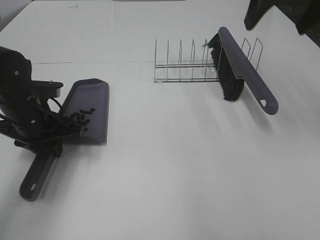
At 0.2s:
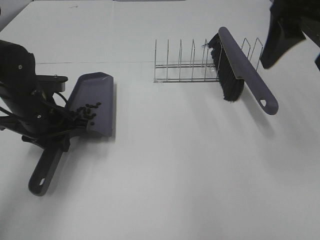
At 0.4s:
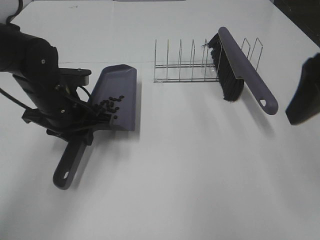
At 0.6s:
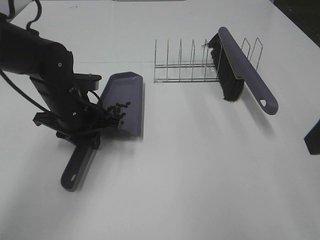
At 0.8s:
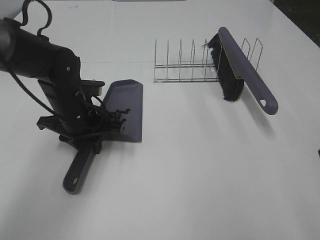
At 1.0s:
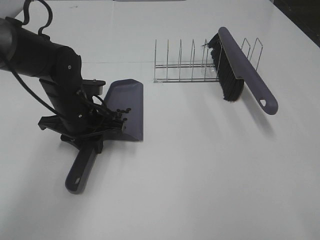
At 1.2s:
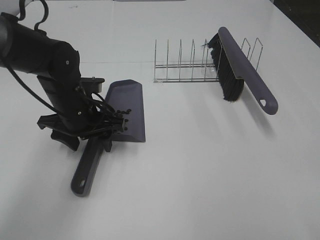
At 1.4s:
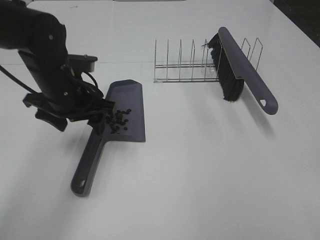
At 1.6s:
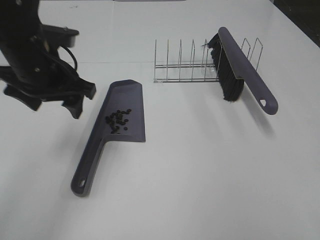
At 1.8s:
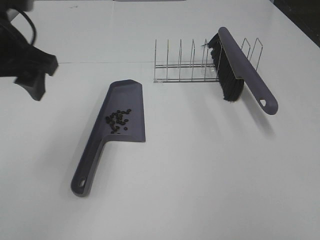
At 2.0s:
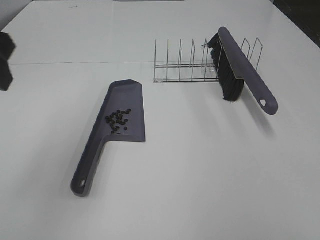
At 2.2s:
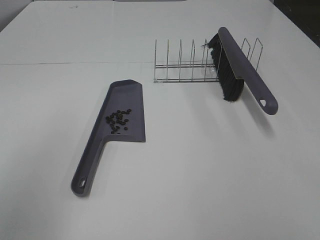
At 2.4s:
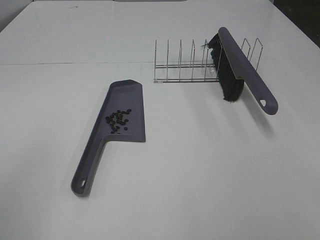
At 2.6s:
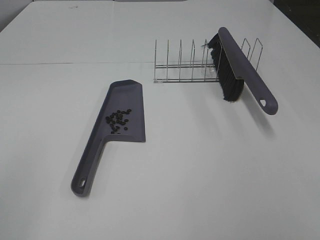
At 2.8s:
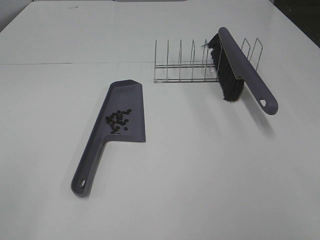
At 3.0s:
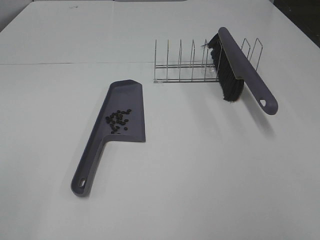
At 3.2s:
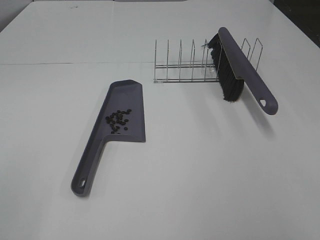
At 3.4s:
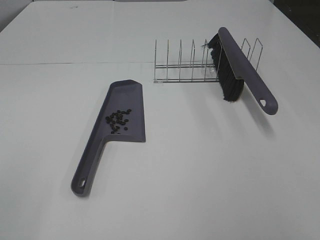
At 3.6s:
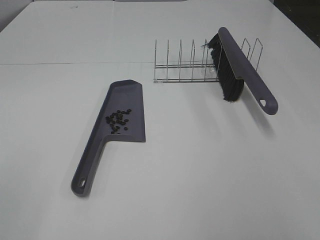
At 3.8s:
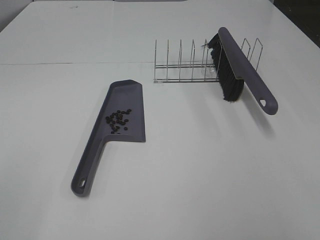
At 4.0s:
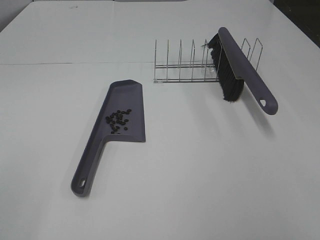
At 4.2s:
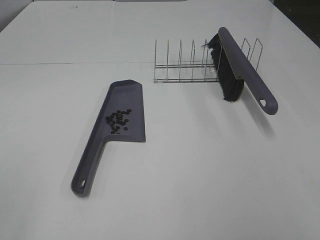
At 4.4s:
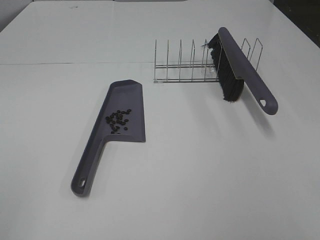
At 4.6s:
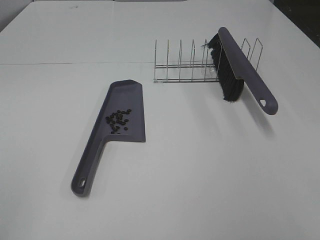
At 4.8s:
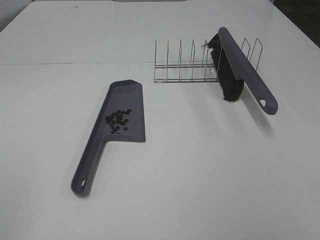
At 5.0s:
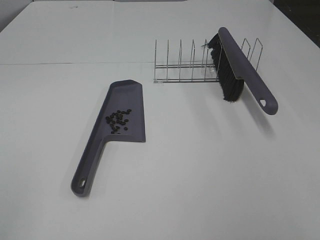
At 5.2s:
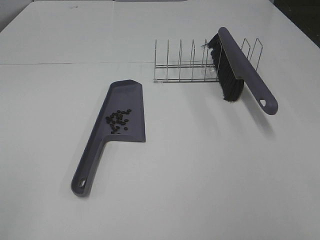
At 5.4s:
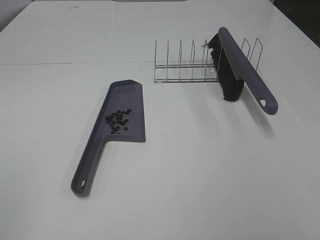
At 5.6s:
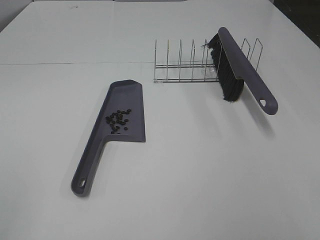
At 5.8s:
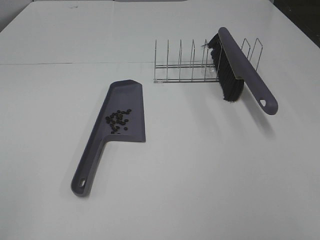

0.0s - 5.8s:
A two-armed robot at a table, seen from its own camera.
Task of the whole recording: Sweep Coffee Bean.
Step, 0.0s - 1.2s: Left hand:place the dustpan on the table.
0.0s - 1.4s: The left gripper is displaced to the right and upward by roughly 10 cm, and opens, while the right gripper moves backward, approximately 25 cm.
1.4s - 2.8s: The left gripper moves backward and to the left, about 40 cm.
4.4s - 5.8s: Both grippers stay about where they are.

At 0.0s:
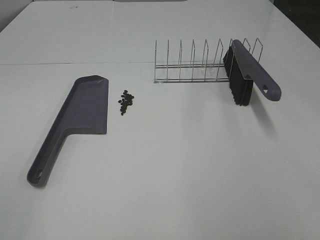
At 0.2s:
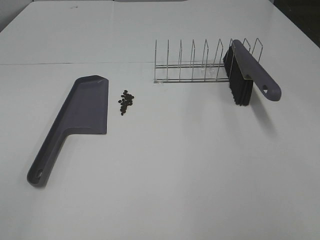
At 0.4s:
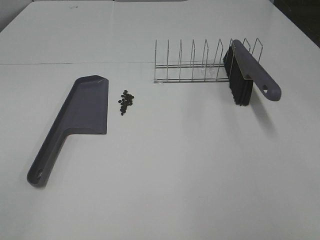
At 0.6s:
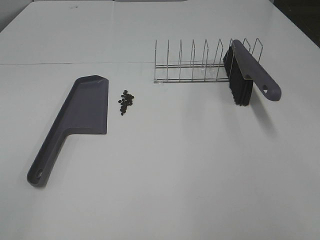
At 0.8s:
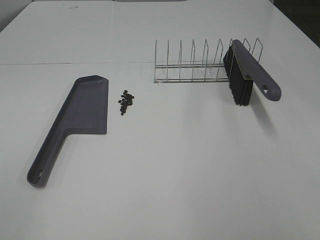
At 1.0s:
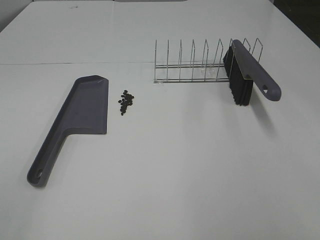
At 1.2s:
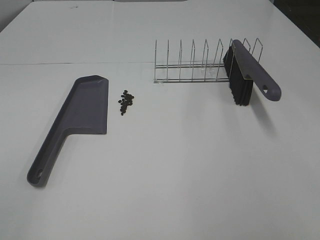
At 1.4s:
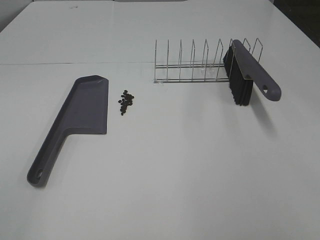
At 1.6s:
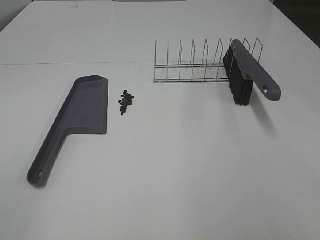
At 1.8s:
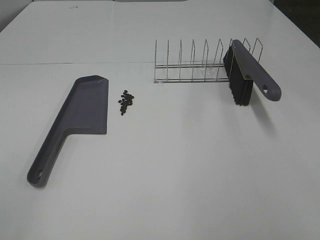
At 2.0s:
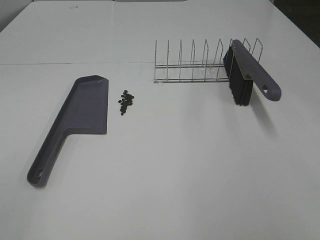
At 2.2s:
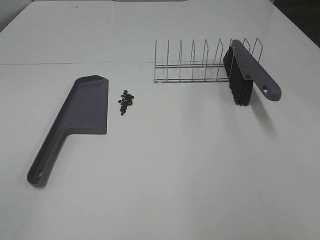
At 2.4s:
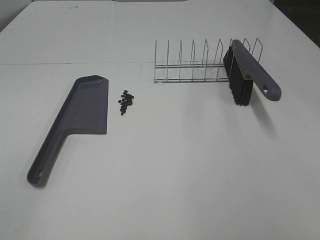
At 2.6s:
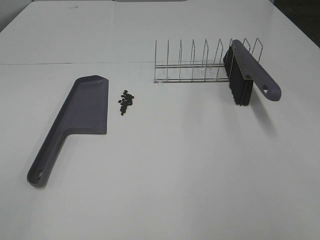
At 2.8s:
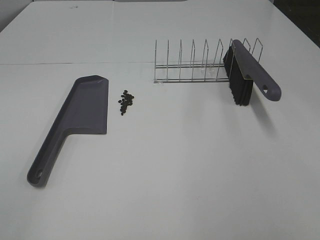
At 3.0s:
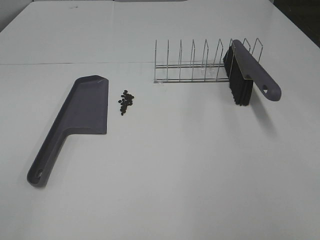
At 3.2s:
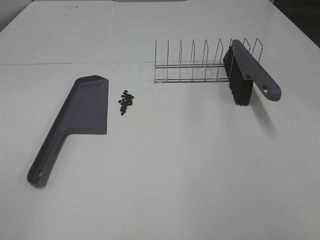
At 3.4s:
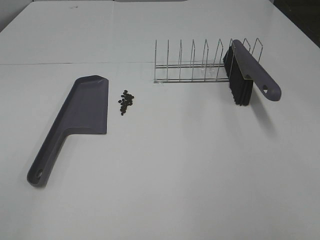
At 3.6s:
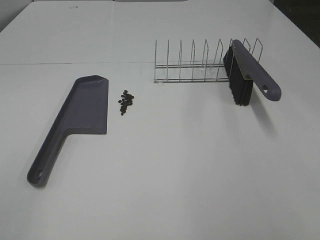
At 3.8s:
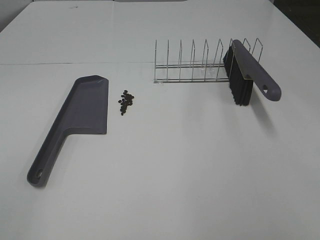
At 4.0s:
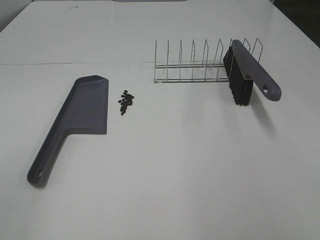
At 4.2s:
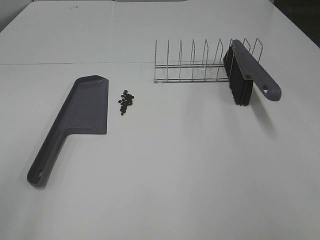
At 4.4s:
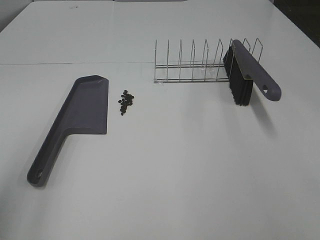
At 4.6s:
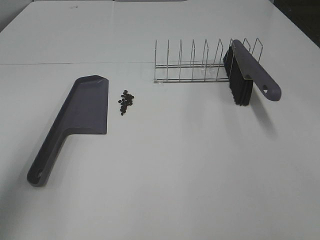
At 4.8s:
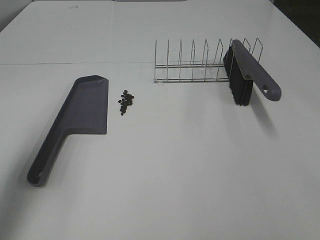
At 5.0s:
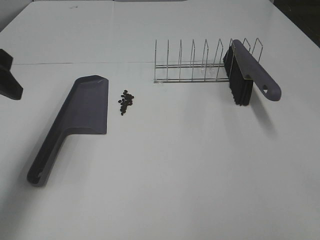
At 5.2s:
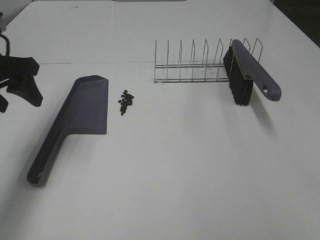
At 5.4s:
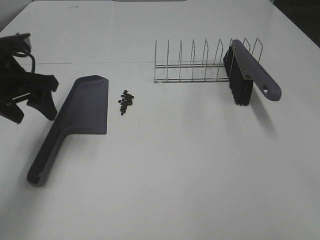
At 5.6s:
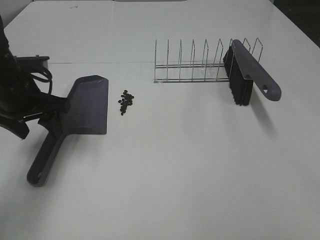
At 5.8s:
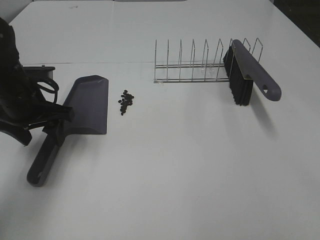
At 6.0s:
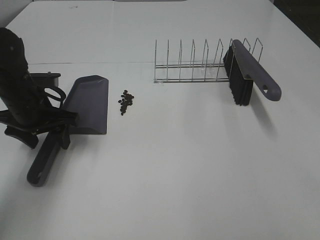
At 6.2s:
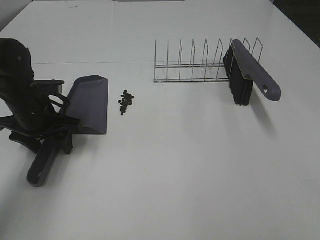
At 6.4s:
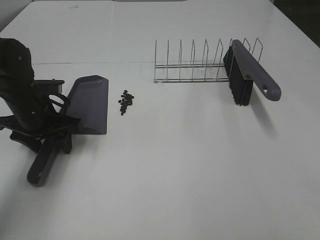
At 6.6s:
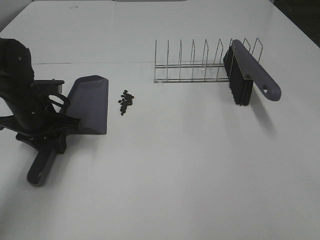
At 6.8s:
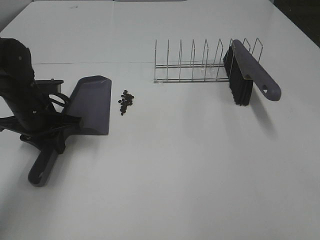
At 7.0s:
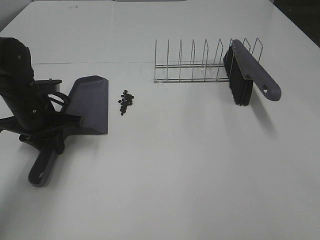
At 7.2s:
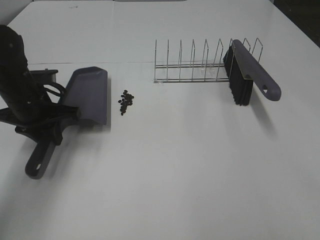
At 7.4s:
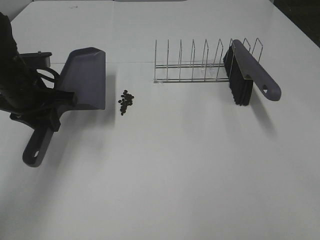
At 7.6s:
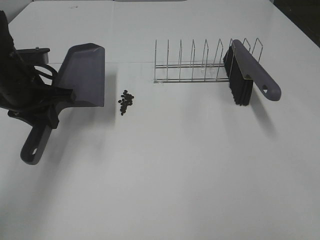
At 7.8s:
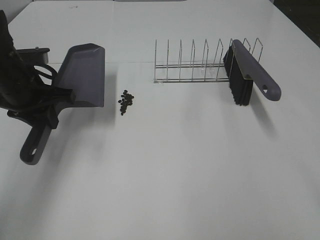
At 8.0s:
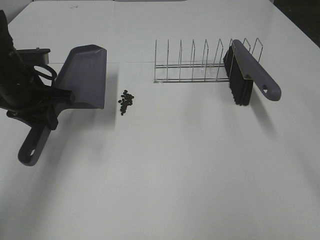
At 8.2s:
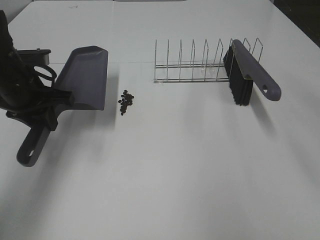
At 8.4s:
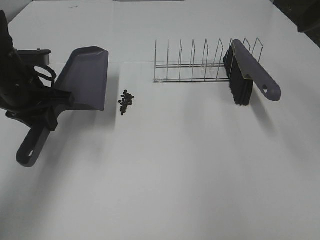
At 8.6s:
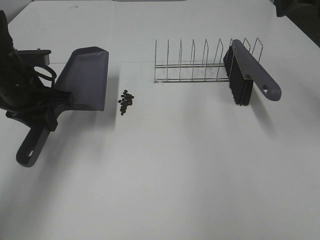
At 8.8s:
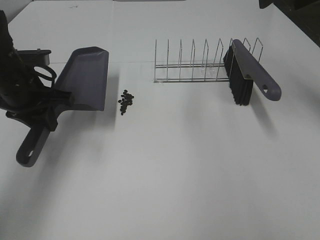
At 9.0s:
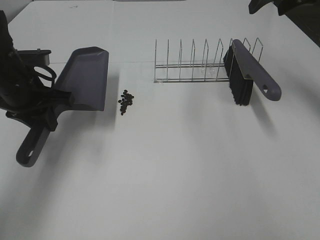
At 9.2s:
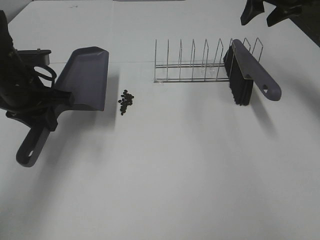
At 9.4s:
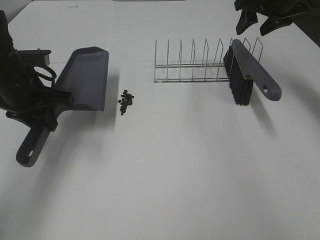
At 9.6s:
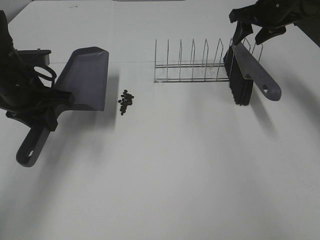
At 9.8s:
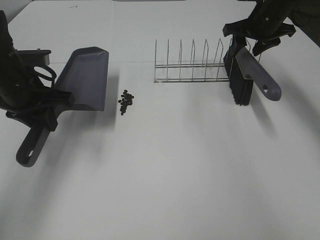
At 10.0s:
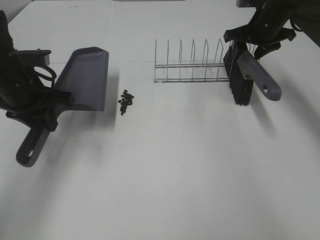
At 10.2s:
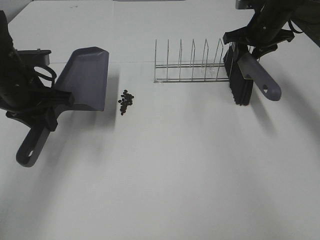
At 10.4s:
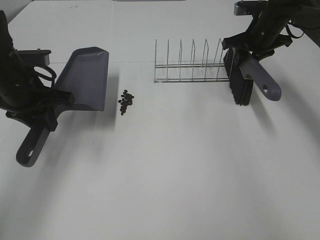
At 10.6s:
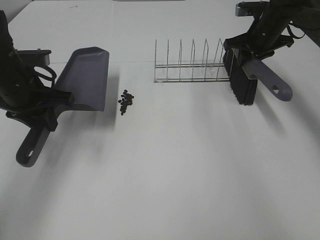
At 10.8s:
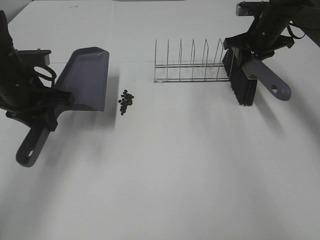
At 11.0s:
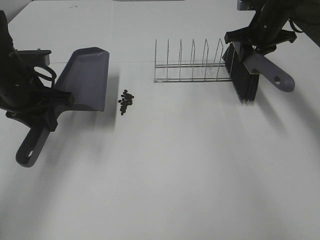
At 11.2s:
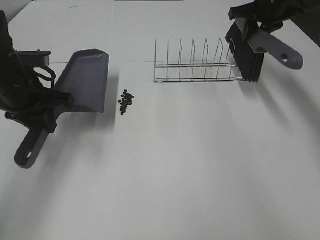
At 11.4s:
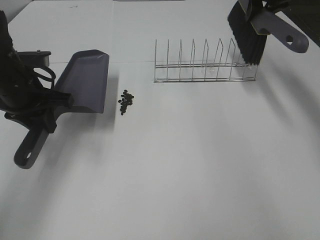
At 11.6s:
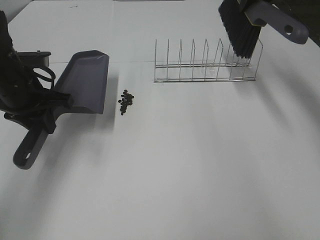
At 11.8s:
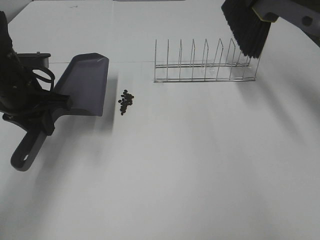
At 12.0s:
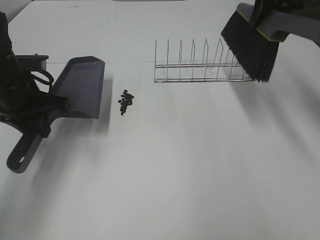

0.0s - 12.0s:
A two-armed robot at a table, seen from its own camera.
Task of the whole recording: Sweep Coffee Bean.
Step, 0.0s - 6.6s: Left hand: grab the dustpan.
Step, 7.4s - 10.8s: Right hand:grab the broom.
0.0s - 3.0s: Both grippers stay put.
4.4s - 6.0s: The left gripper shifts about 30 cm forward and downward.
6.0s - 7.6s: The left gripper travels upward by approximately 5 cm, and closes up.
7.6s - 9.0s: The right gripper travels forward by some 40 cm.
9.0s - 10.4s: The right gripper moves downward and forward, some 15 cm, and closes.
10.4s - 12.0s: The right gripper heads upward and backward, covering approximately 15 cm.

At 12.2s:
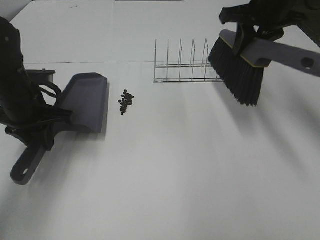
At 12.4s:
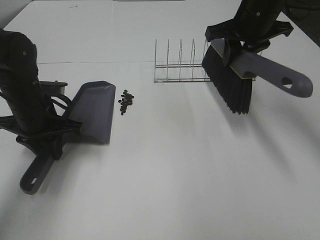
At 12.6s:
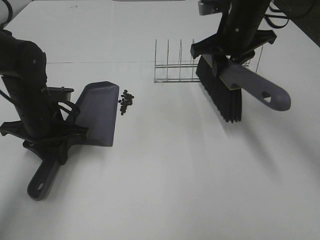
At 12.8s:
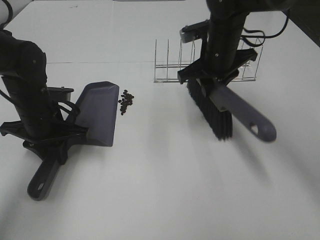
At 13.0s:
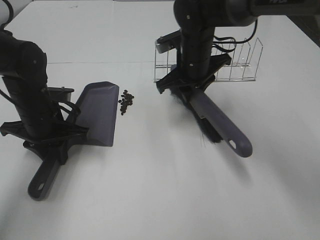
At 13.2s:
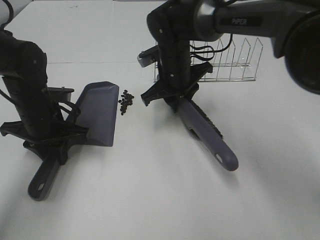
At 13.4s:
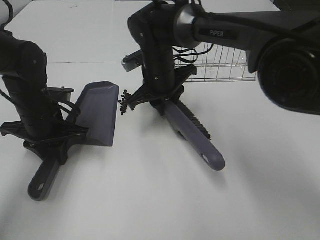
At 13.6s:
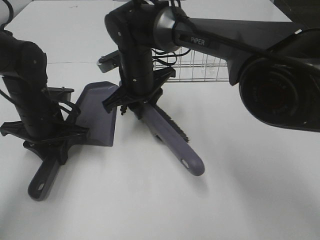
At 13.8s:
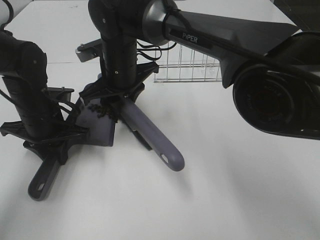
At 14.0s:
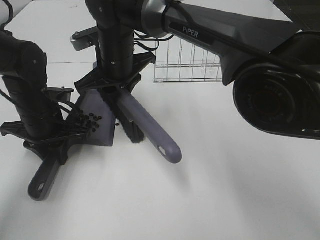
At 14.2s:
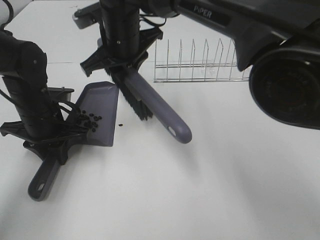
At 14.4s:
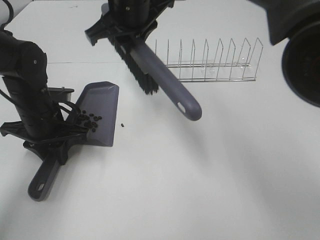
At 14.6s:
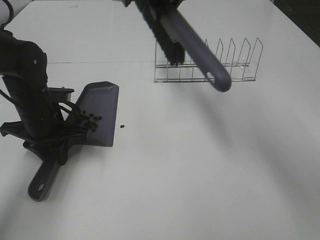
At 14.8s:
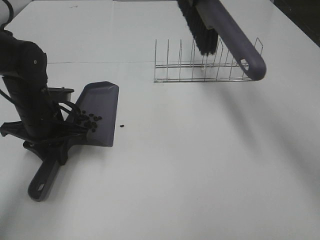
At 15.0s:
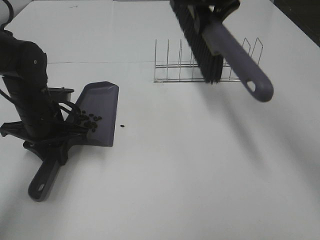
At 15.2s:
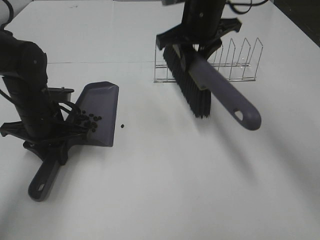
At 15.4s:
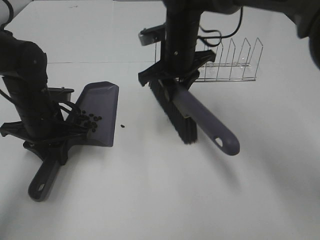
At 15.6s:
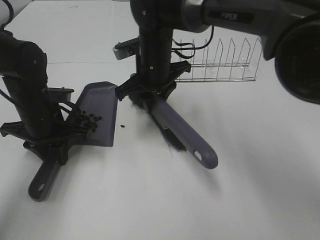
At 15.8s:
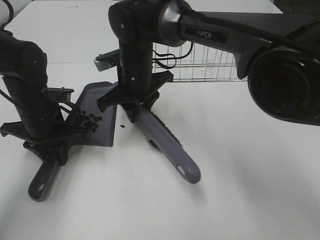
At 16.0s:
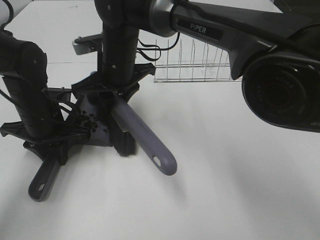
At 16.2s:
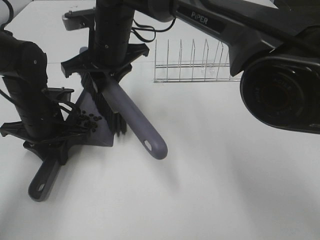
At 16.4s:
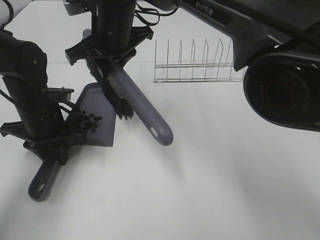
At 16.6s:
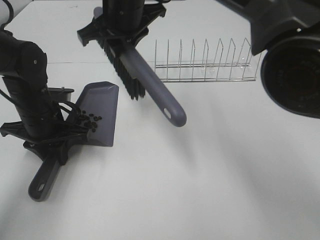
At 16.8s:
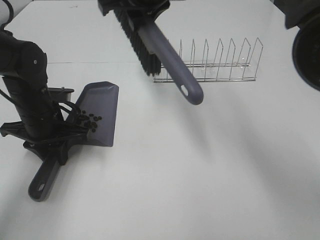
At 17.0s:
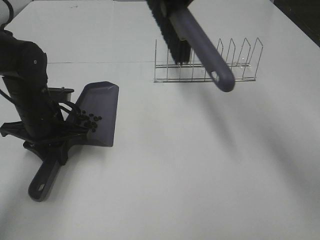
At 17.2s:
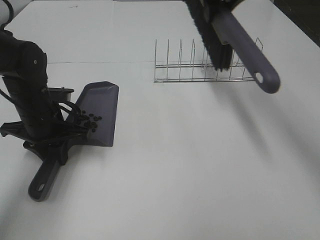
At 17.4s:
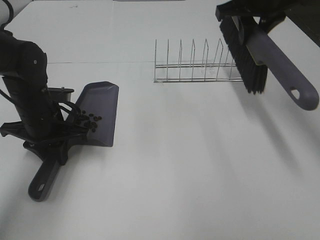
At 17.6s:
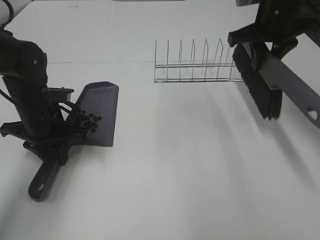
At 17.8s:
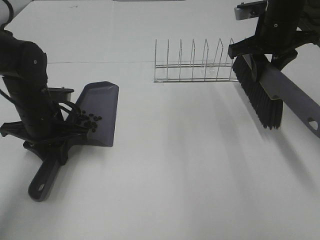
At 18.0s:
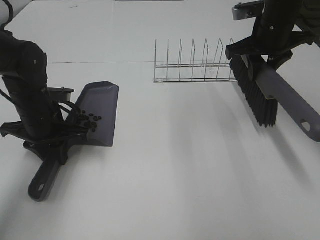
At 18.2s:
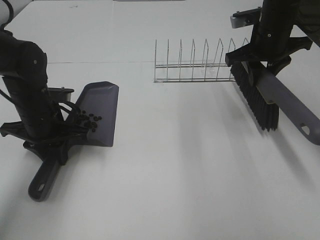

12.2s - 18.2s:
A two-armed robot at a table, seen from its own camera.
Task of the whole recording: Sweep Coffee Bean.
Step, 12.2s - 16.4s: Right hand:sweep the coffee beans into the dustpan.
12.2s - 13.8s: The right gripper shifts roughly 25 cm to the left.
13.8s - 15.2s: The right gripper travels to the right and upward by some 15 cm.
15.2s - 16.6s: The right gripper shifts some 10 cm to the left.
16.6s - 18.2s: The right gripper goes approximately 25 cm to the right.
